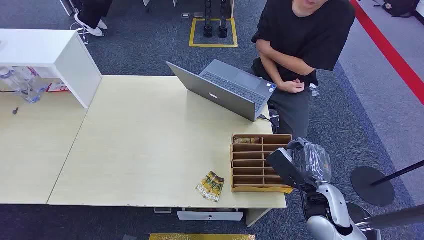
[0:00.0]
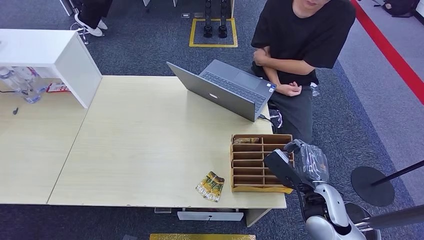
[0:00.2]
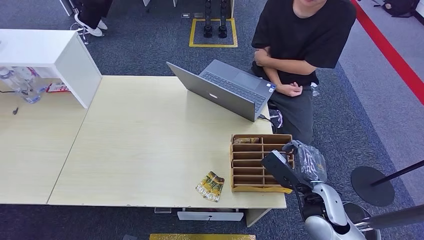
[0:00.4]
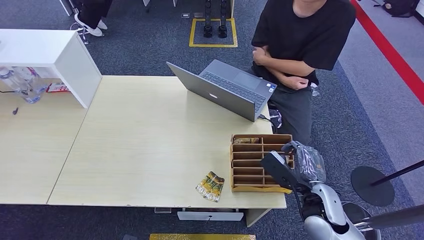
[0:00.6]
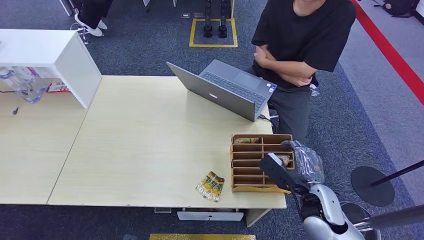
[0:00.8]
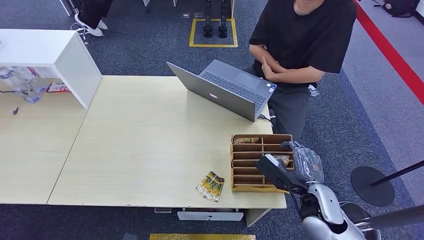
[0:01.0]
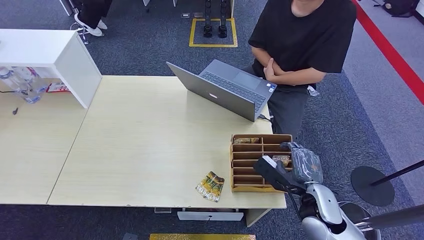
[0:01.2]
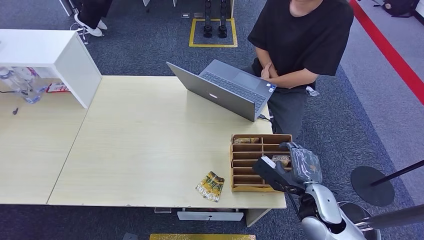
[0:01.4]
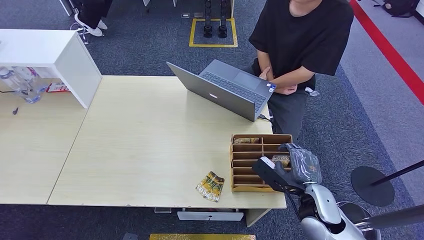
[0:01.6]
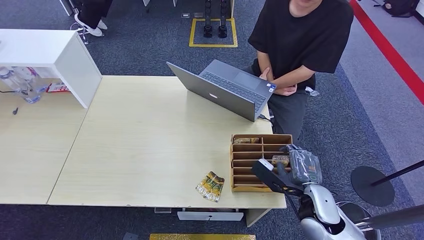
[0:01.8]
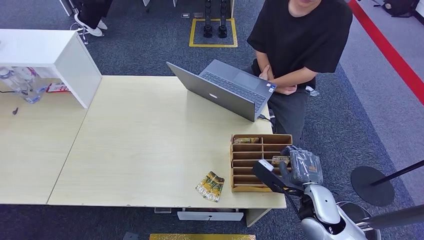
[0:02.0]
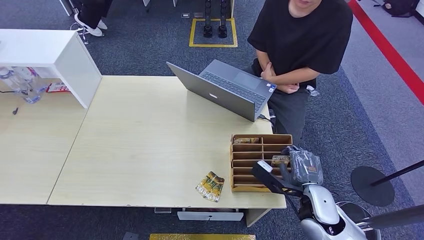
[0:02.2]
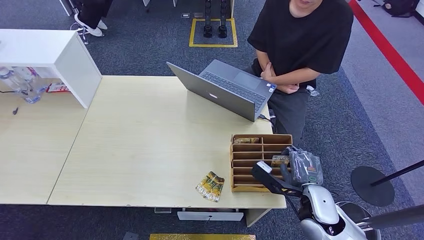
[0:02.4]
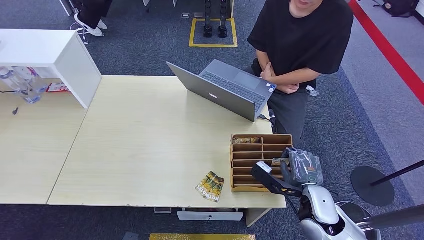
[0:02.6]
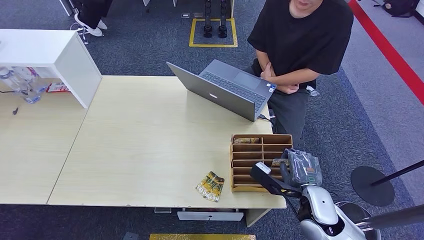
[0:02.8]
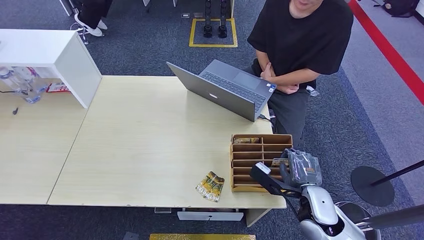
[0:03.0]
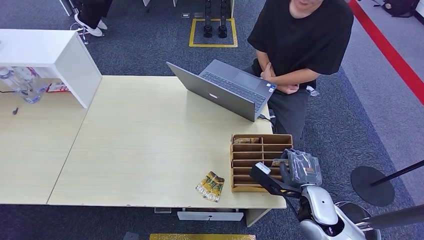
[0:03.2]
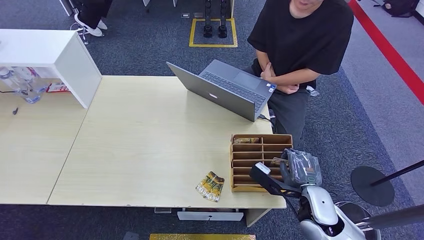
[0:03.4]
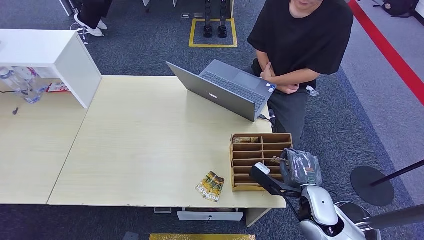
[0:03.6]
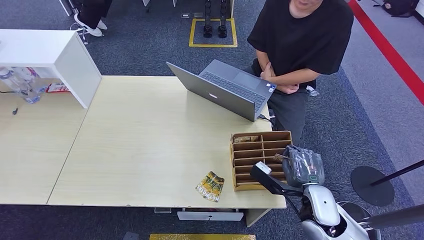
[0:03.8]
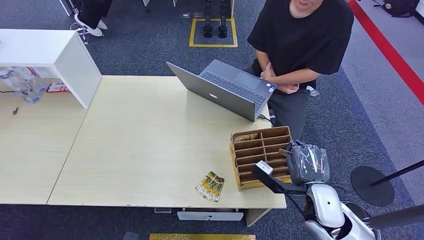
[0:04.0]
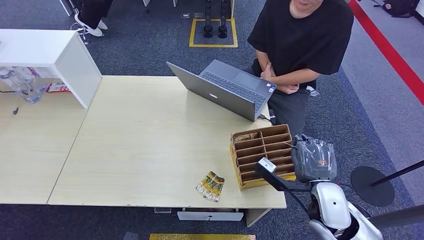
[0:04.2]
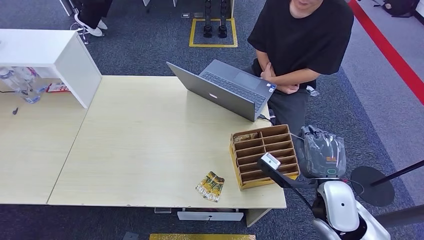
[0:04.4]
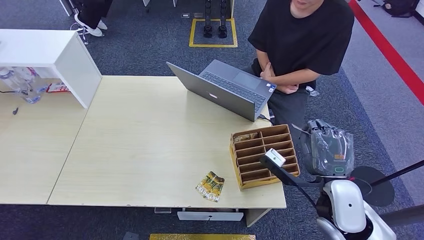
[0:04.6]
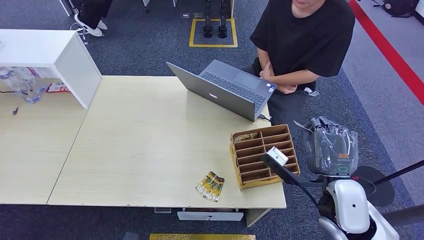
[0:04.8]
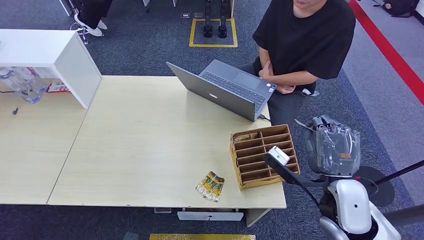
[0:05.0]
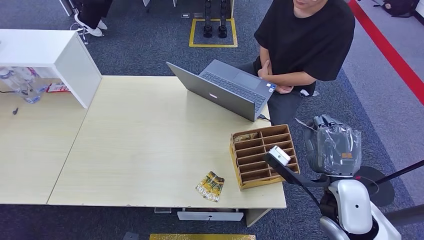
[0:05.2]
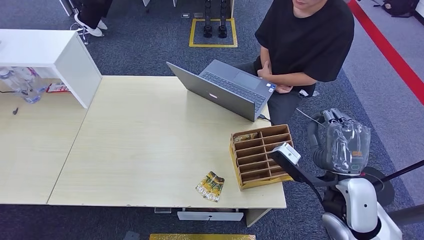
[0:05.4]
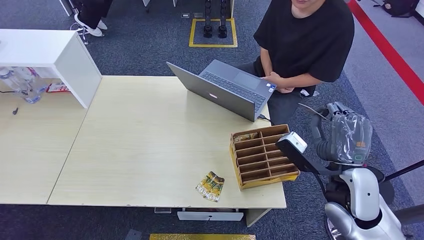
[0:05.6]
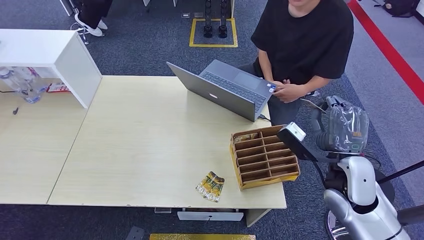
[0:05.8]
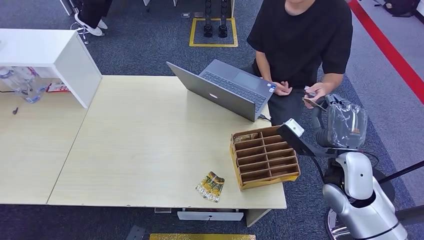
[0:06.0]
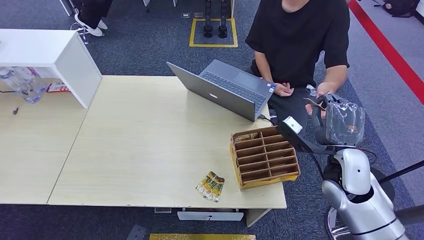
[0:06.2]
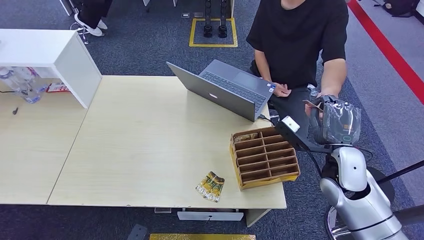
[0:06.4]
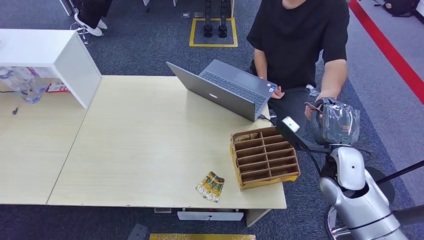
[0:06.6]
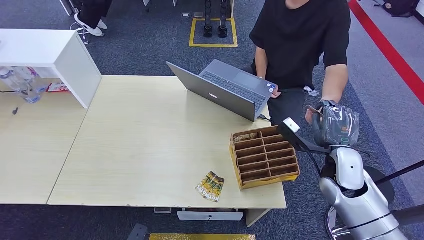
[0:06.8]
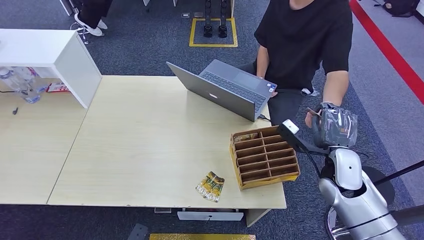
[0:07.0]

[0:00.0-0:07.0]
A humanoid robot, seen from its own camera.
Step, 0:00.0 to 0:03.8: Pick up the key card from the card box.
Step, 0:04.0 to 0:07.0: Hand the key card to the target.
0:01.4 to 0:02.8: There are only small adjustments of the hands.
0:02.8 to 0:04.2: There are only small adjustments of the hands.
0:04.2 to 0:05.6: The right hand shifts approximately 5 cm upward.
0:05.6 to 0:07.0: The right hand heads forward and downward, covering some 10 cm.
